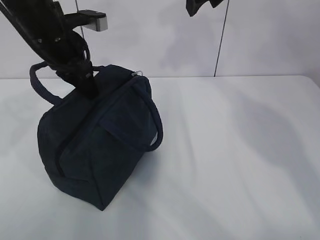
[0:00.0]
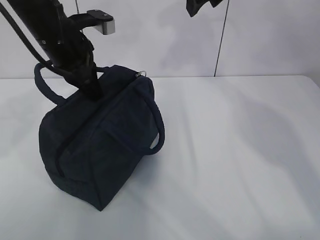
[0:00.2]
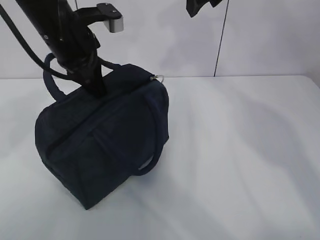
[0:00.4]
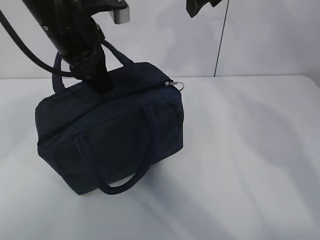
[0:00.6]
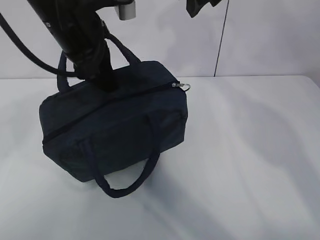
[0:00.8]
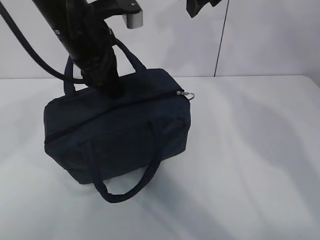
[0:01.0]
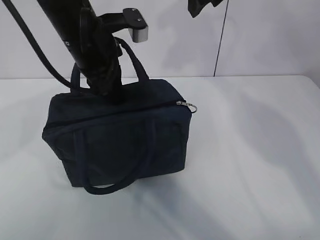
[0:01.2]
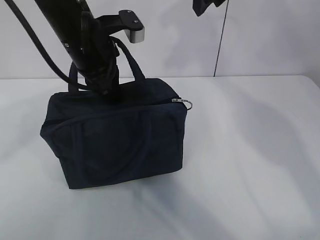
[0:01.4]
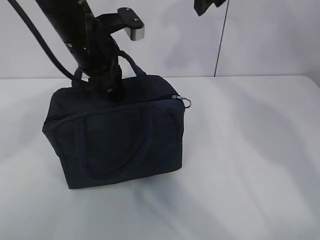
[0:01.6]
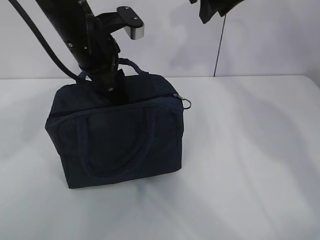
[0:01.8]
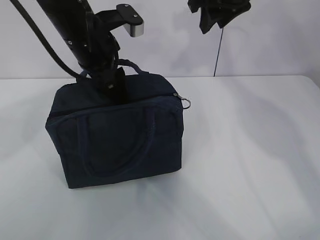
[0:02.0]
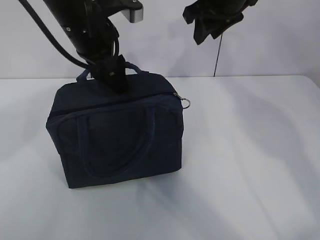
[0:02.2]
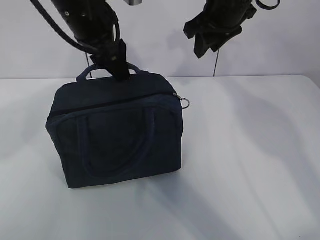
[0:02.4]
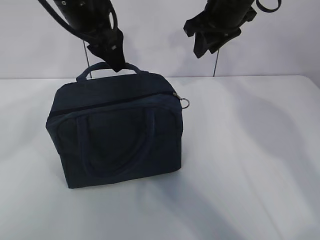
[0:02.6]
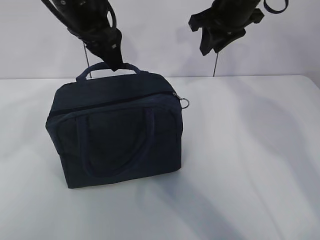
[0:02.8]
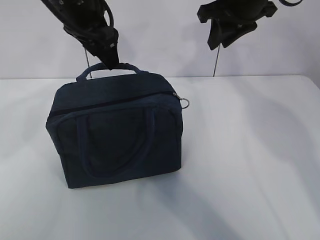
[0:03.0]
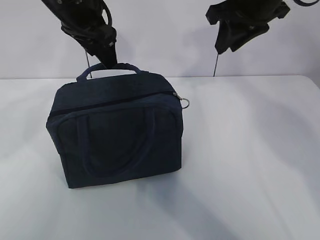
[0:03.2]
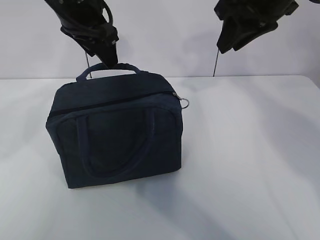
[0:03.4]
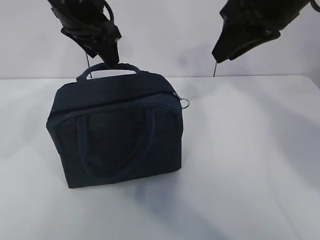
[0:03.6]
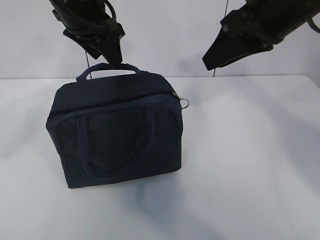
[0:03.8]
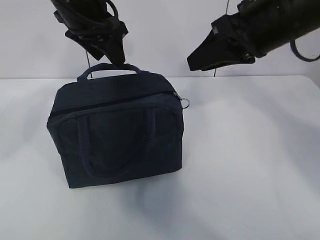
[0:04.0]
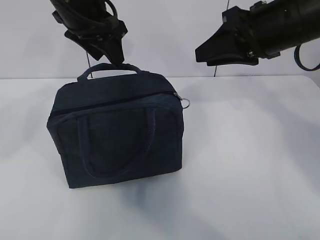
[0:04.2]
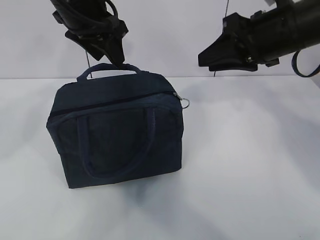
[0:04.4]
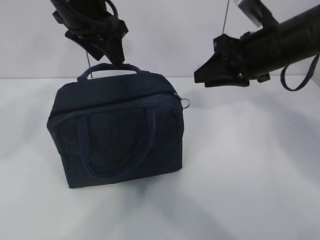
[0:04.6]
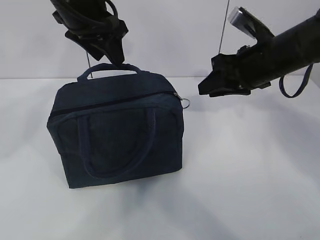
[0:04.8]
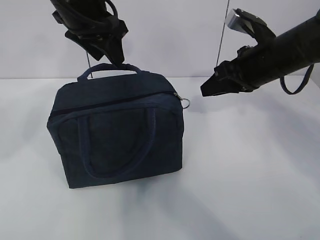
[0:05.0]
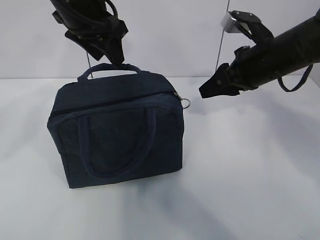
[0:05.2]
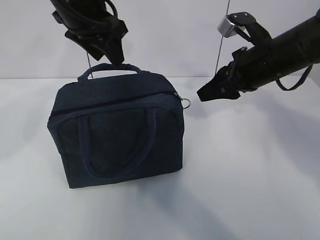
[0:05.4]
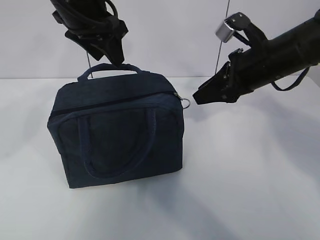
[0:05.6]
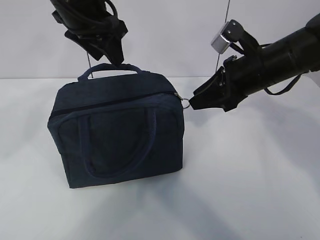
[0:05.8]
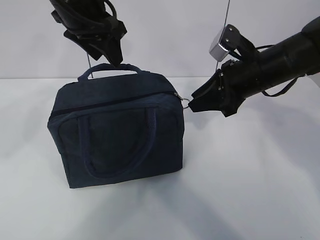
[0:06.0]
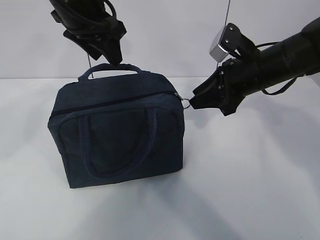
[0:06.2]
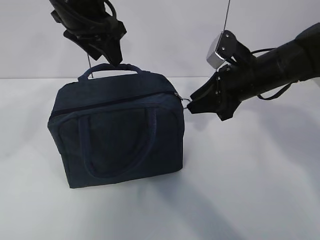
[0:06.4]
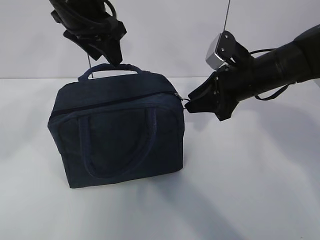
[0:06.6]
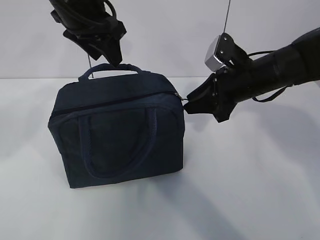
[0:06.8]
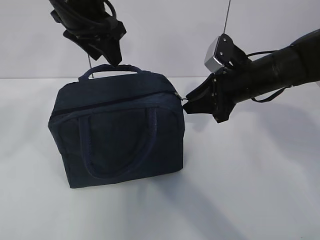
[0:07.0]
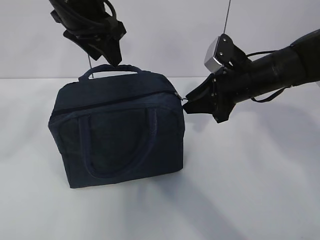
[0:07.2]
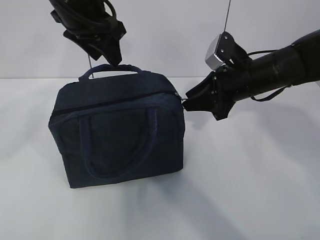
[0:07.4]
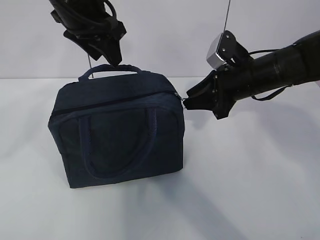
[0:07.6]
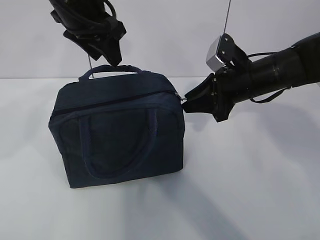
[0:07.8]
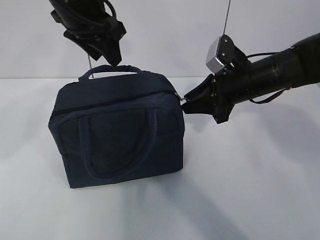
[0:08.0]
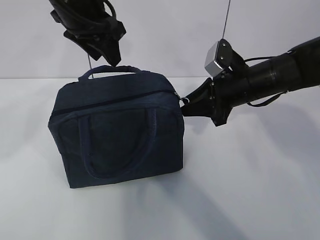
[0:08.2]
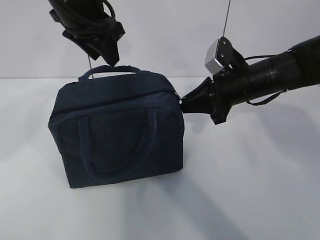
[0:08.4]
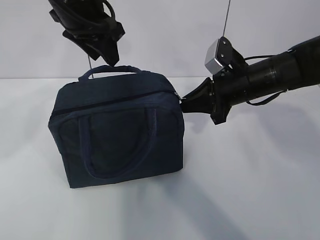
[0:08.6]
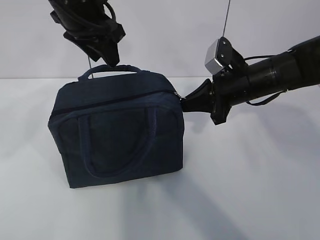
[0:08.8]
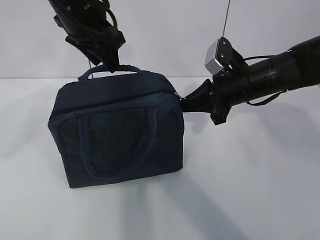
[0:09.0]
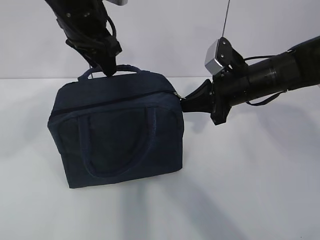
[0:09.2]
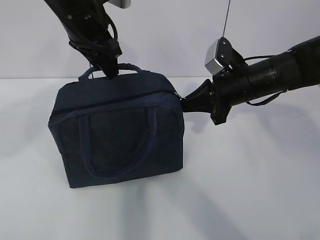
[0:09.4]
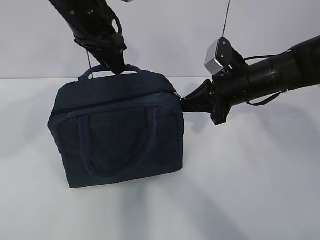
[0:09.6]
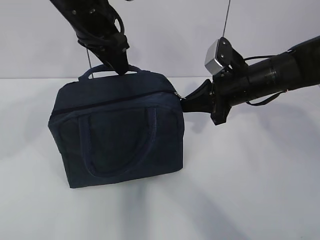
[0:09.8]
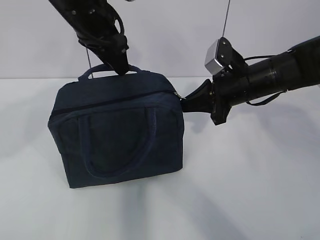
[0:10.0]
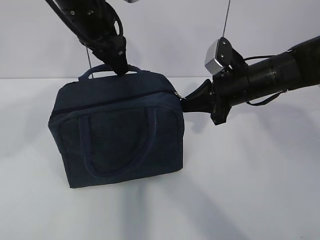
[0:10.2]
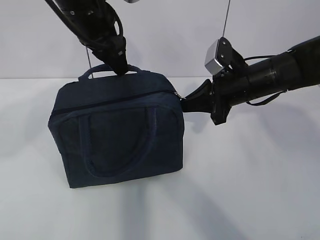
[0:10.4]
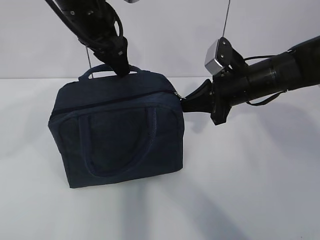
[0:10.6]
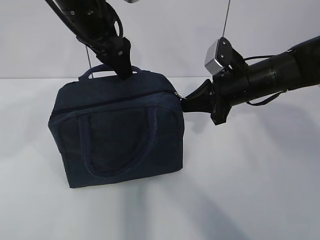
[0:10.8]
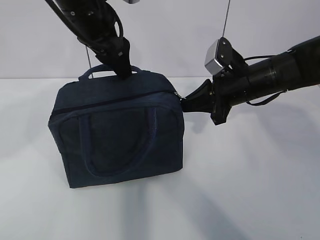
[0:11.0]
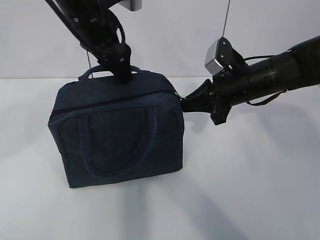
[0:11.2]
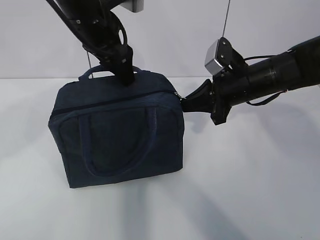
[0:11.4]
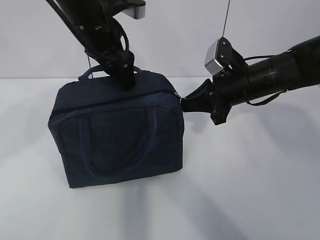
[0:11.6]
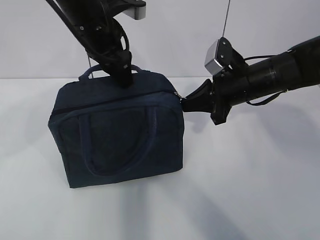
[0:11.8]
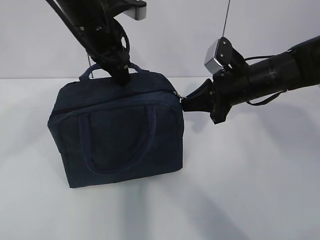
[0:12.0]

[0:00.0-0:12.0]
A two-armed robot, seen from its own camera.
0:00.0 to 0:01.6: The left gripper is displaced to the right by roughly 5 cm.
0:01.6 to 0:03.0: The left gripper goes approximately 5 cm upward, and opens. The right gripper shifts approximately 5 cm downward.
0:03.0 to 0:04.4: The right gripper shifts about 10 cm backward.
0:04.4 to 0:06.0: The right gripper is displaced downward by some 10 cm.
0:06.0 to 0:07.6: There are only small adjustments of the grippers.
0:07.6 to 0:09.0: The right gripper closes its fingers.
0:09.0 to 0:10.4: The grippers stay close to where they were, moving slightly.
0:10.4 to 0:12.0: The left gripper closes.

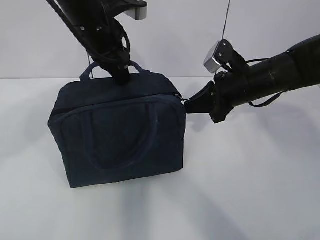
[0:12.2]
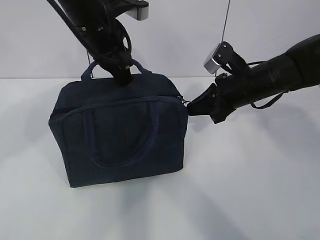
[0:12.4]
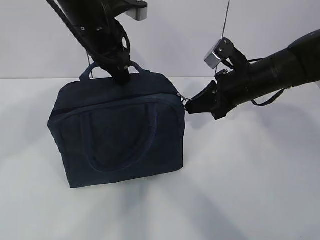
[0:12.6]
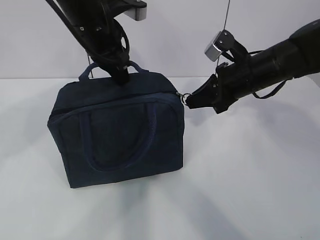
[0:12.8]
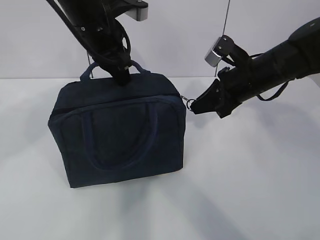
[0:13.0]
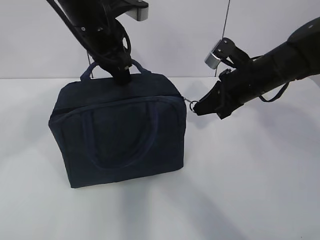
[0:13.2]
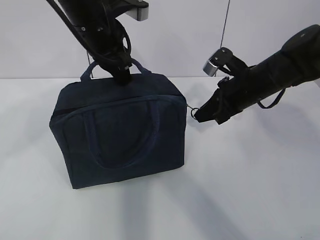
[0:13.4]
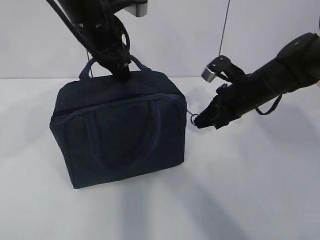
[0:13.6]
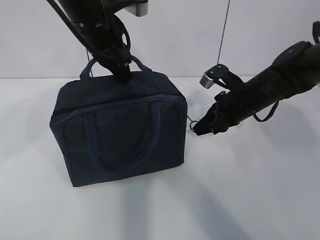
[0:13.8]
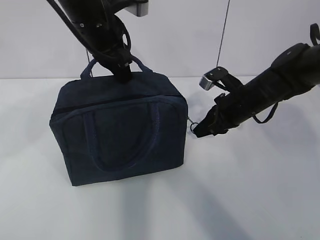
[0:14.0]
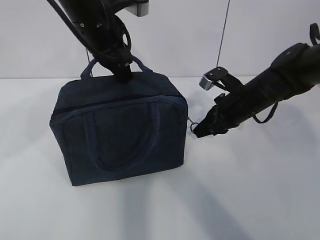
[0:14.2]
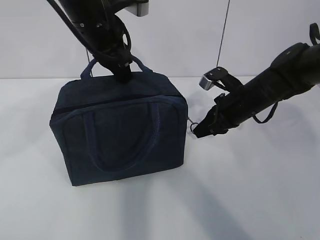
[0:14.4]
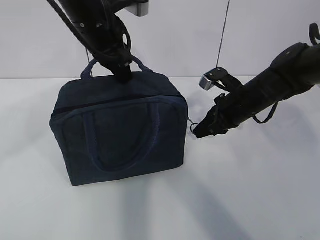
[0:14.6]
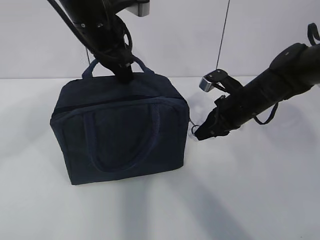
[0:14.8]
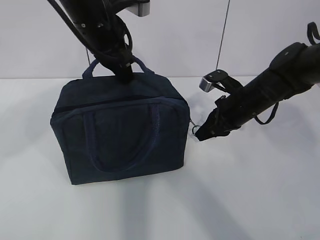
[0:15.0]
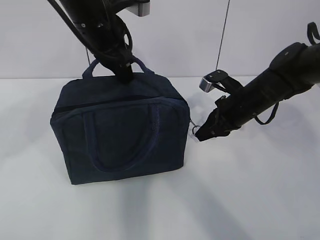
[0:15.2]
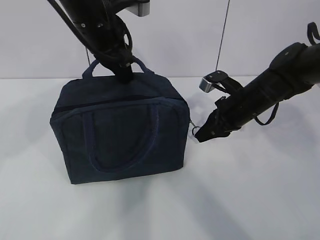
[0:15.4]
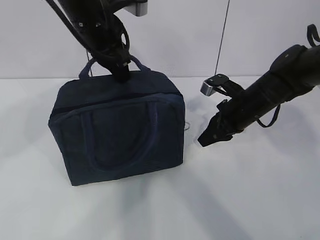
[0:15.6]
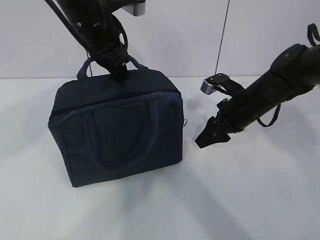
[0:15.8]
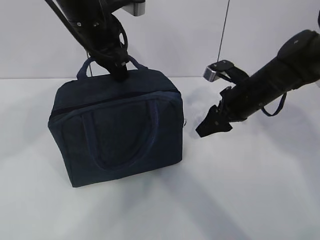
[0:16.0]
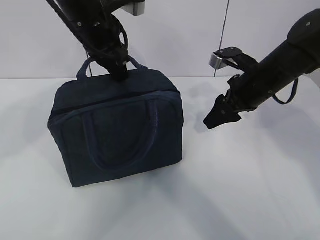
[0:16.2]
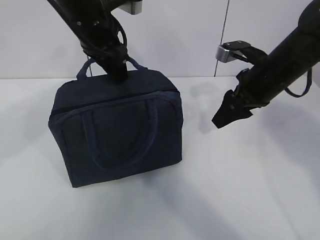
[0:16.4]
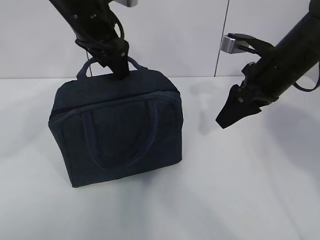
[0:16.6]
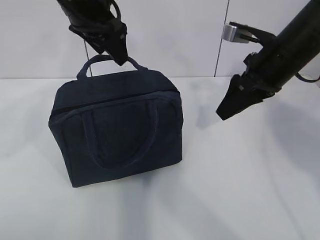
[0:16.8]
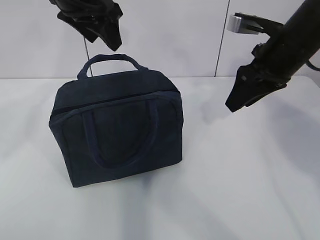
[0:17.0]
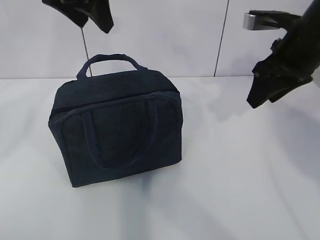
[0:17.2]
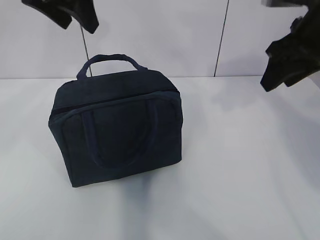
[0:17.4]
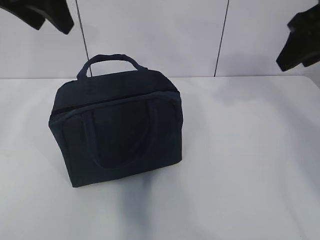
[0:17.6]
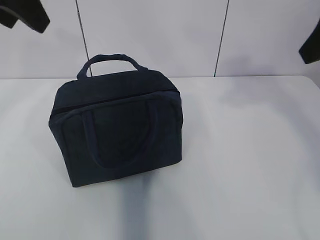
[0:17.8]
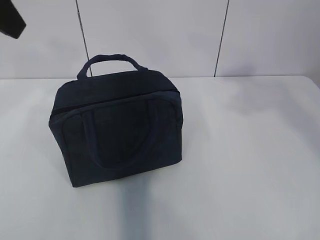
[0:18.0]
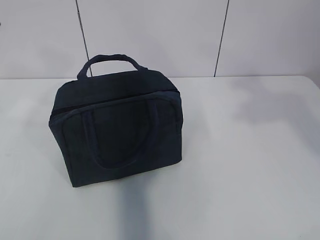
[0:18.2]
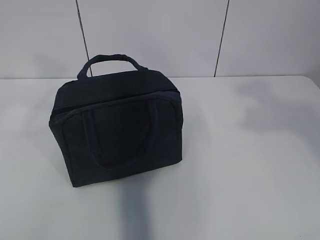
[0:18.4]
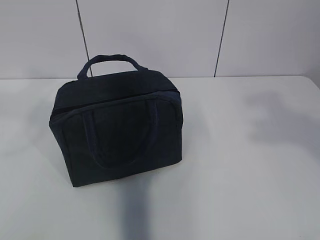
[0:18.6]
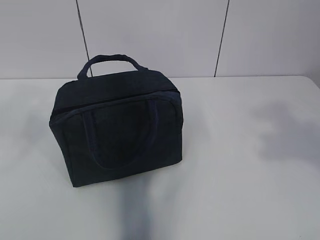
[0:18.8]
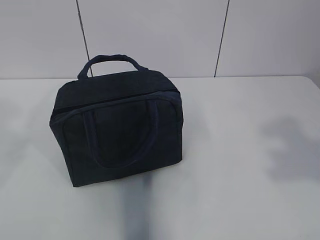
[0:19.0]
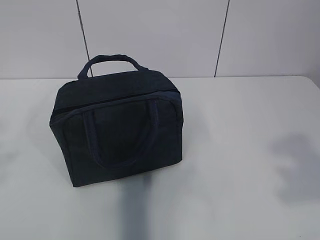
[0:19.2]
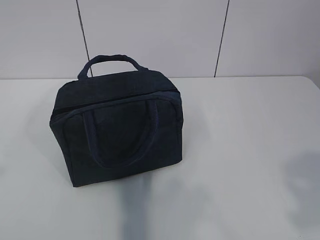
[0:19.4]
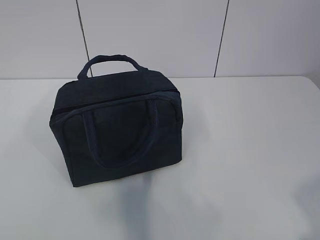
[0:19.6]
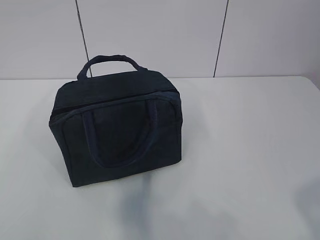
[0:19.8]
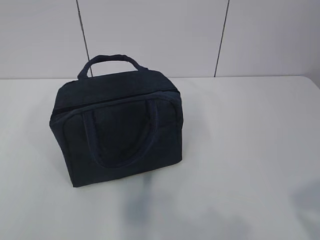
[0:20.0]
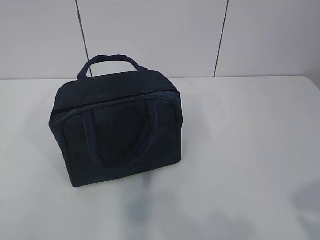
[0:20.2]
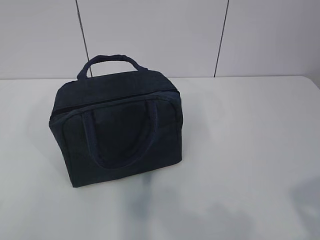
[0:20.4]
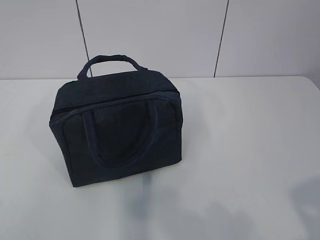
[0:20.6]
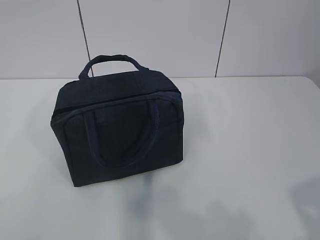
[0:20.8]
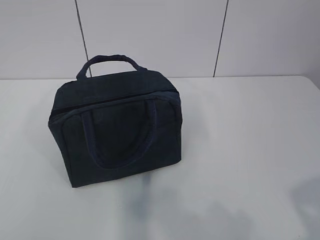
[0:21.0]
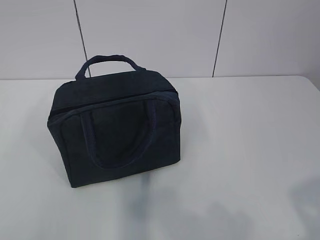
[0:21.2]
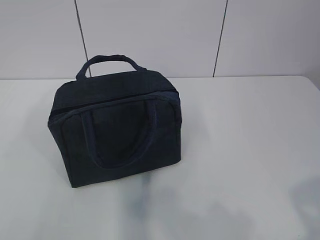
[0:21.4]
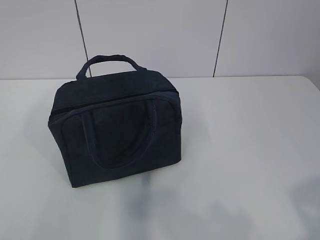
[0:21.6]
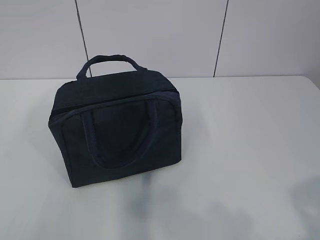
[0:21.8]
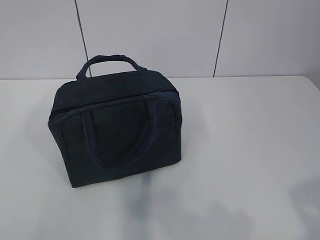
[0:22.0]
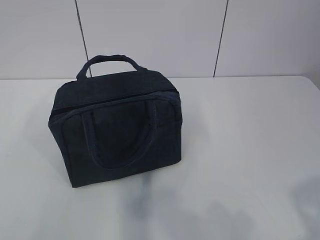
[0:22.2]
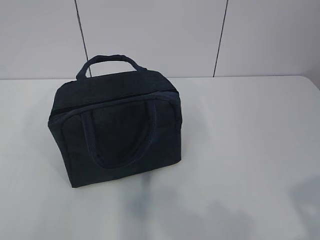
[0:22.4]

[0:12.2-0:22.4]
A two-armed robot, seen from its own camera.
0:12.2 to 0:13.6: The grippers stay close to where they were, moving slightly.
0:13.6 to 0:15.2: The grippers move only a little.
0:15.2 to 0:16.6: The left gripper opens, while the right gripper heads upward, covering approximately 10 cm, and opens its fingers.
0:16.6 to 0:18.0: The right gripper goes roughly 20 cm upward and backward, while the left gripper shifts some 20 cm backward, upward and to the left.
0:18.0 to 0:19.4: The right gripper travels backward by roughly 25 cm. Meanwhile the left gripper travels backward and to the left by approximately 25 cm.
0:19.4 to 0:21.0: The grippers both shift downward by some 10 cm.
